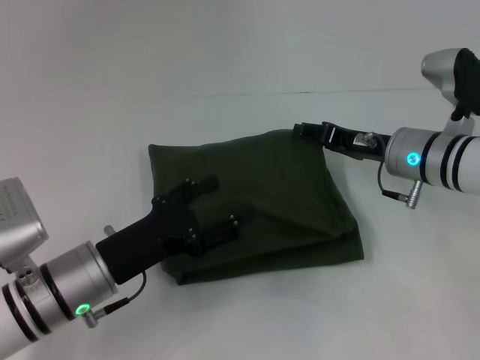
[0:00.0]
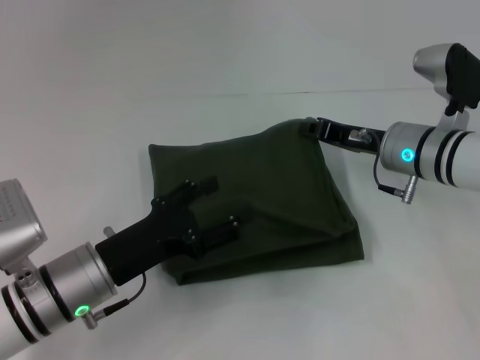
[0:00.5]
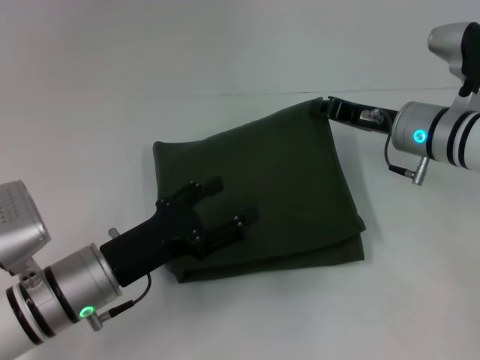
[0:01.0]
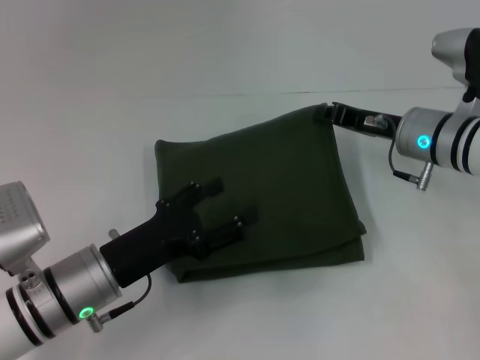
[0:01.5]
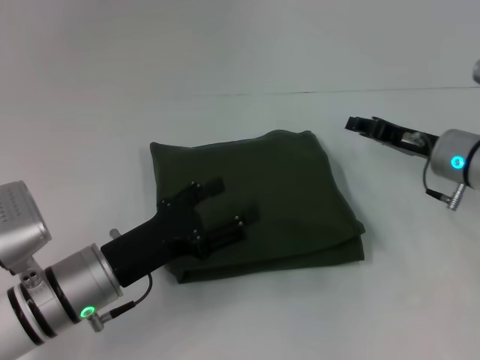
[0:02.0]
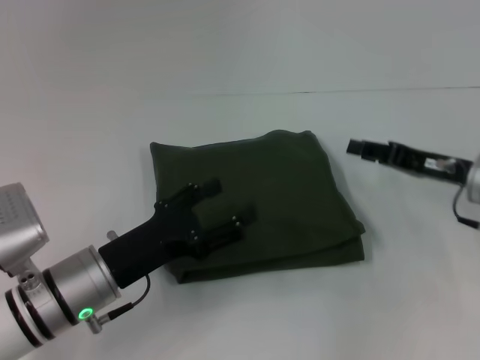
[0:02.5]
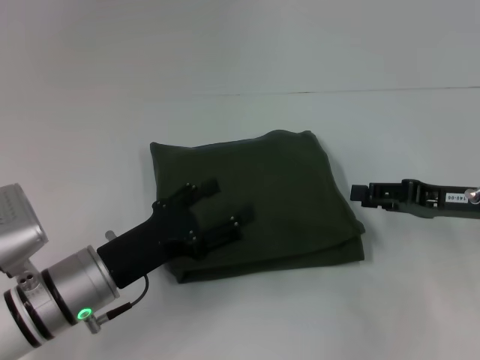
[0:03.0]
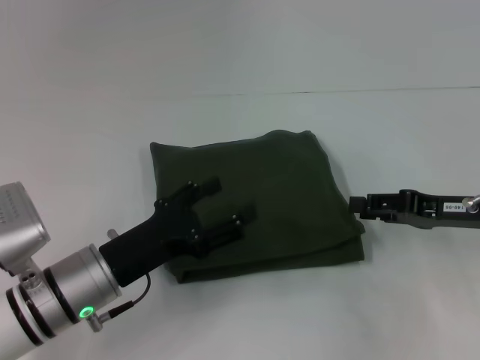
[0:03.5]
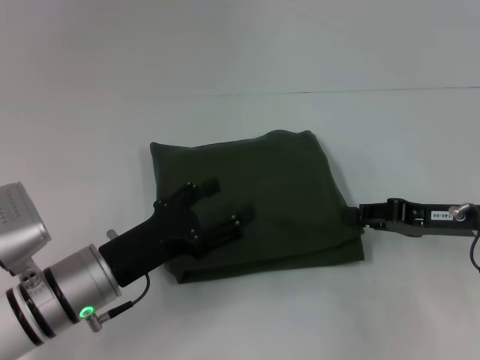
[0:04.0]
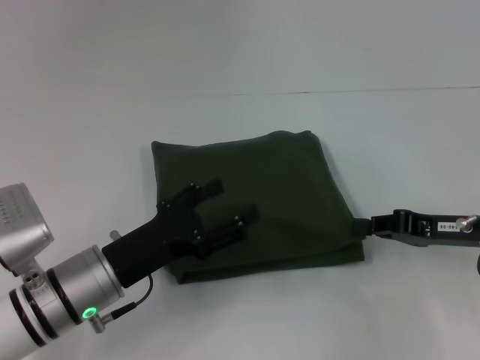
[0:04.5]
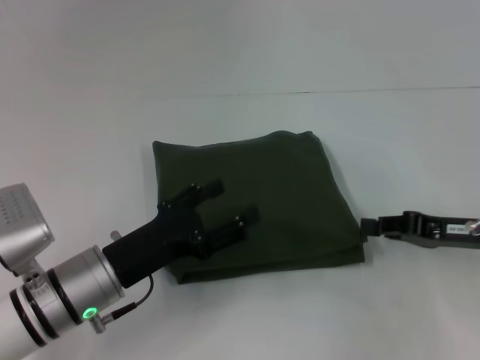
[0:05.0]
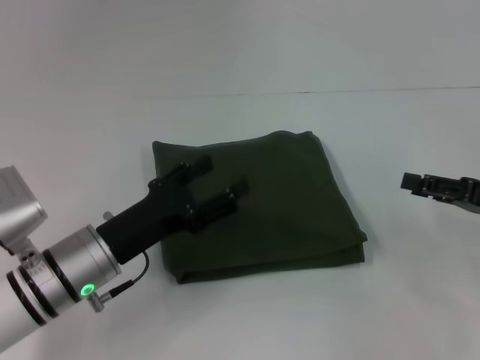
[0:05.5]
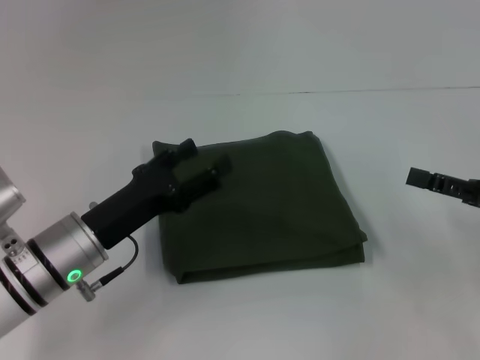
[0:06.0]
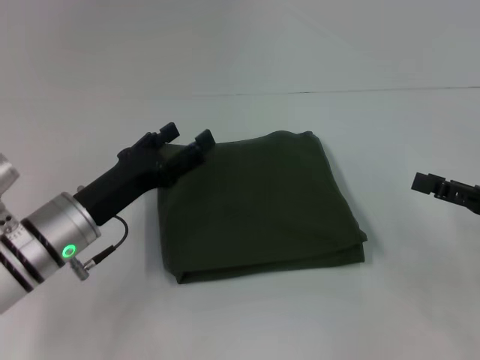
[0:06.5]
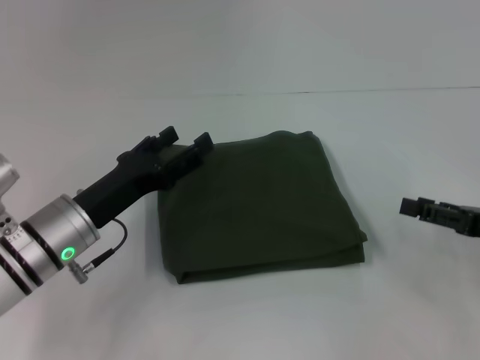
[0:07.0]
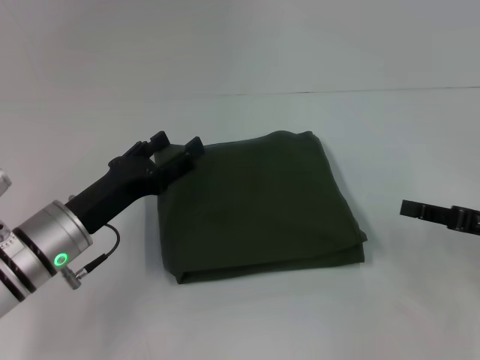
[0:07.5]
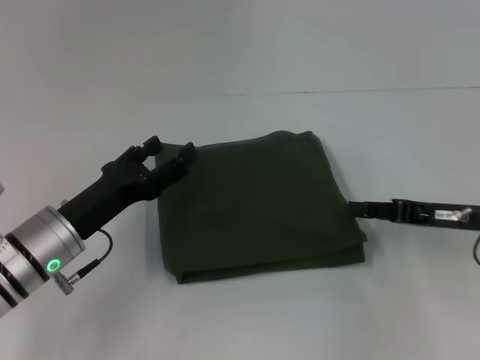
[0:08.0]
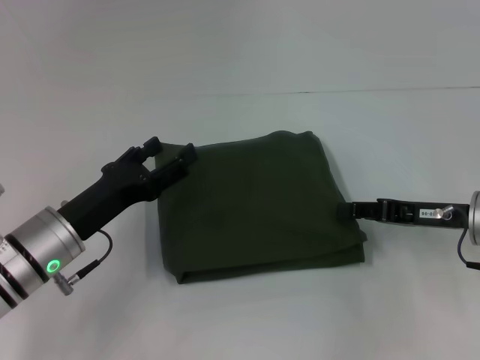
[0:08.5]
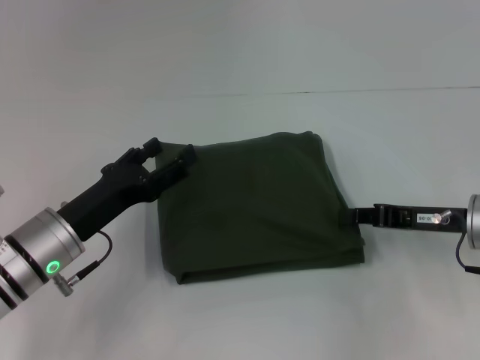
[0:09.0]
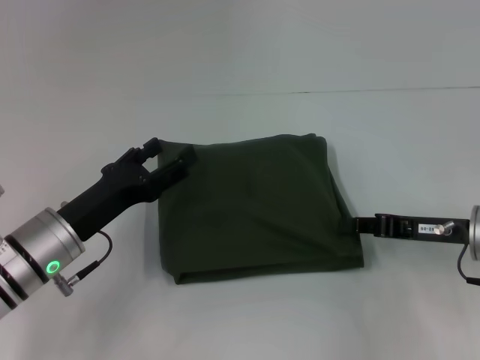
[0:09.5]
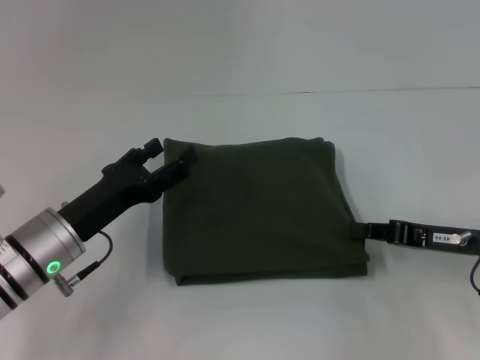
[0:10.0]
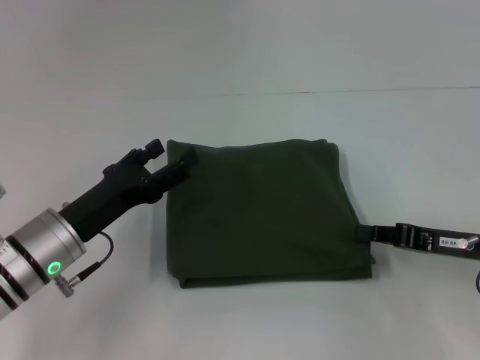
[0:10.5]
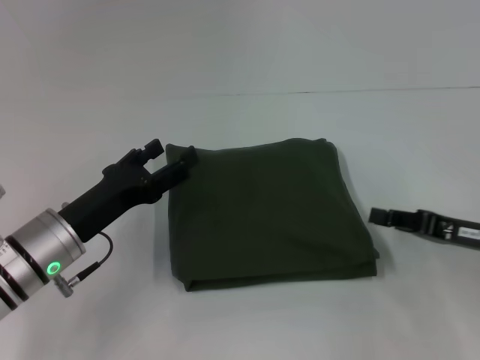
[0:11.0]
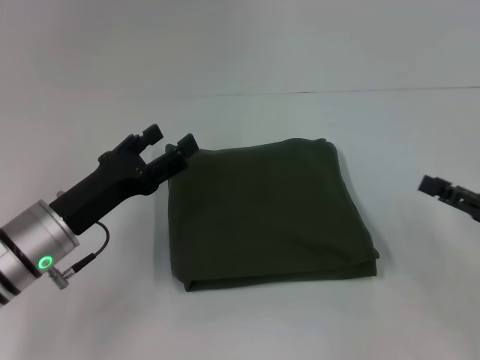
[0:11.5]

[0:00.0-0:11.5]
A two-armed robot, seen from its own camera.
0:00.0 to 0:02.0: The right gripper closes.
0:02.0 to 0:04.0: The right gripper heads backward, covering roughly 5 cm.
0:04.0 to 0:06.0: The right gripper shifts about 5 cm to the right, and opens.
0:06.0 to 0:07.5: The right gripper closes its fingers.
0:07.5 to 0:09.5: The right gripper goes about 5 cm to the left, and closes up.
0:09.5 to 0:11.5: The right gripper is displaced to the right and backward by some 10 cm, and opens its fingers.

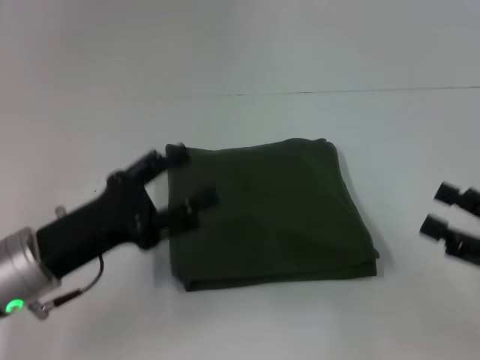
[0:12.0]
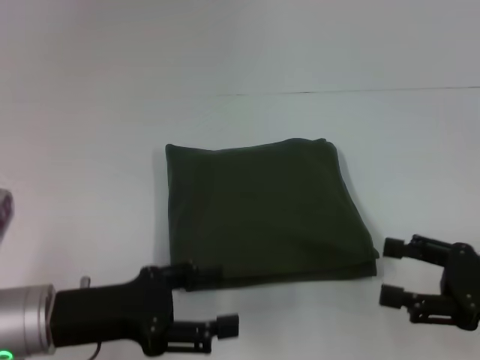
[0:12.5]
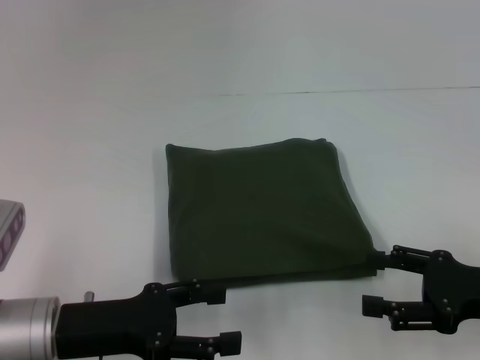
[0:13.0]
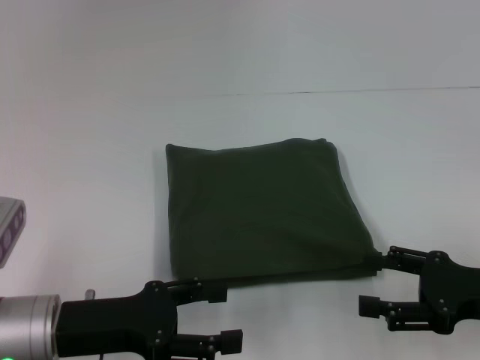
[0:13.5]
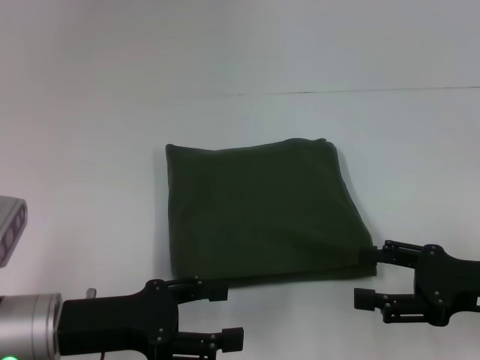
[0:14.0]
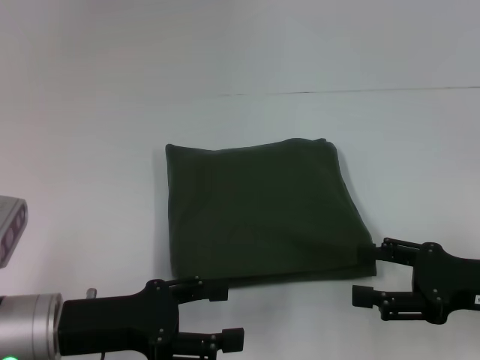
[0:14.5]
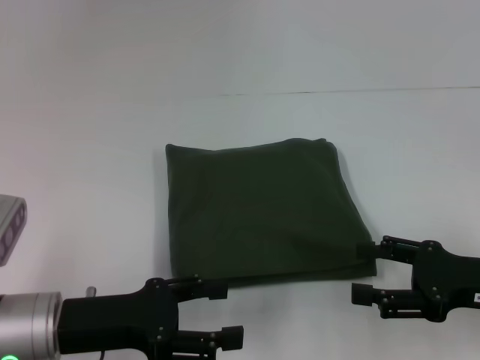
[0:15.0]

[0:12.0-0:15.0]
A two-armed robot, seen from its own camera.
0:13.5 to 0:15.0: Both grippers stay put.

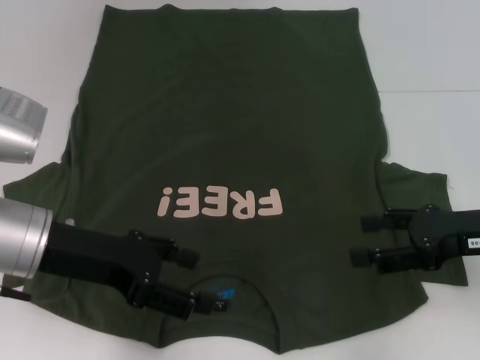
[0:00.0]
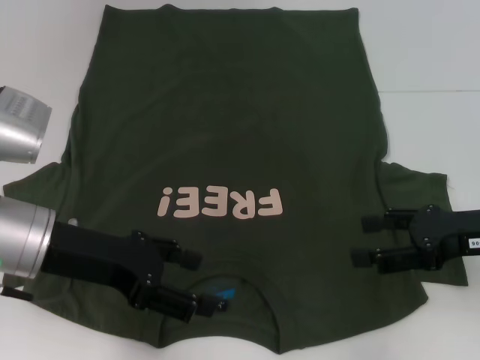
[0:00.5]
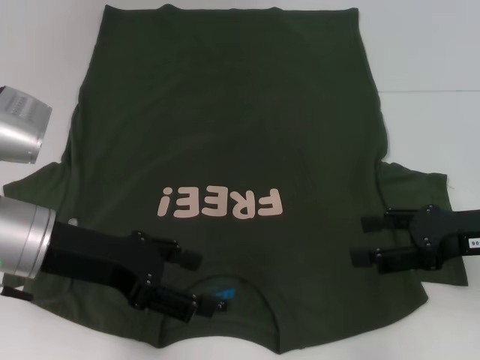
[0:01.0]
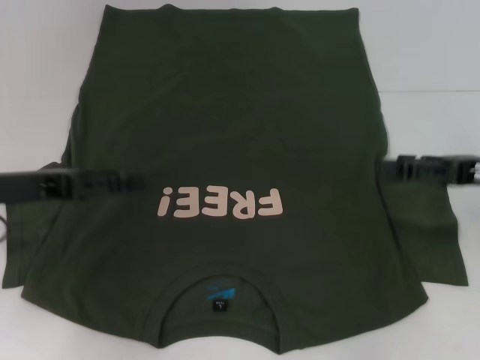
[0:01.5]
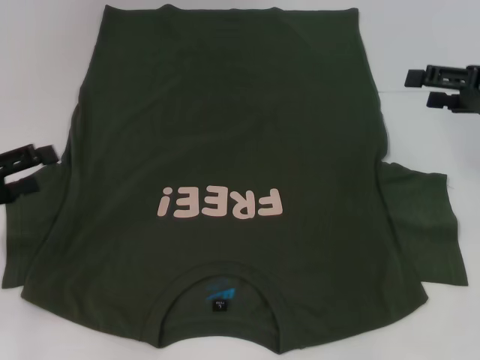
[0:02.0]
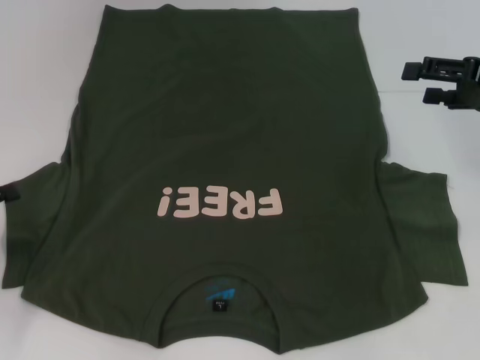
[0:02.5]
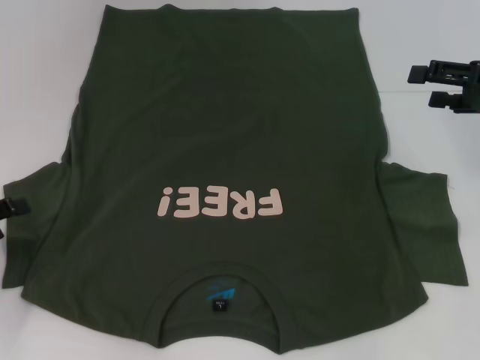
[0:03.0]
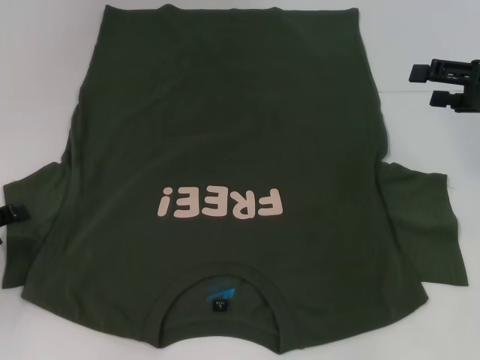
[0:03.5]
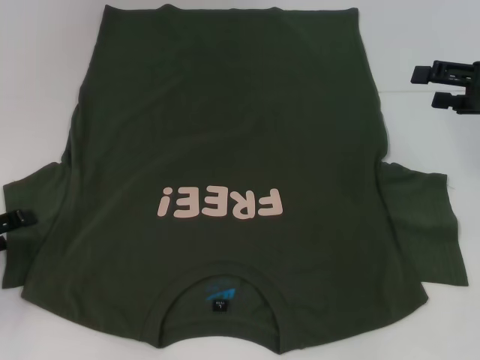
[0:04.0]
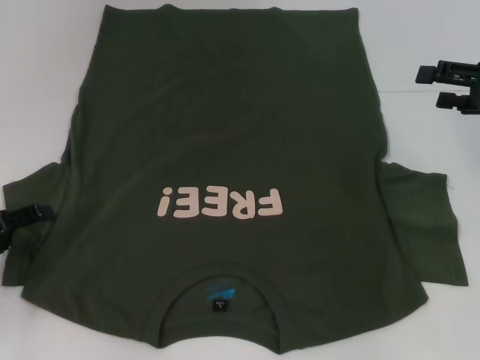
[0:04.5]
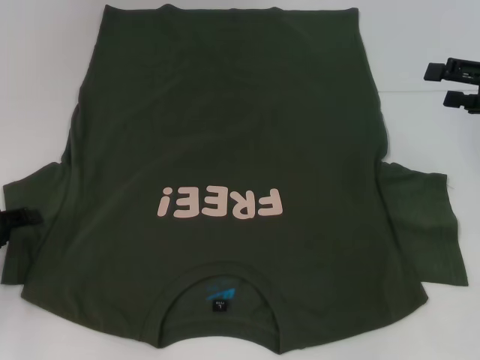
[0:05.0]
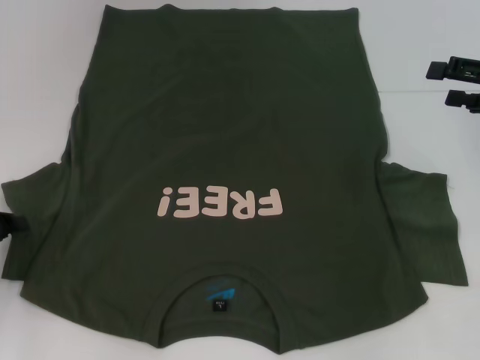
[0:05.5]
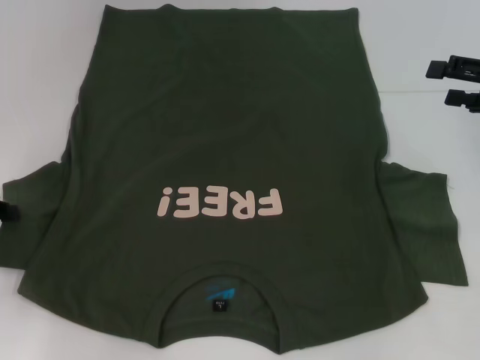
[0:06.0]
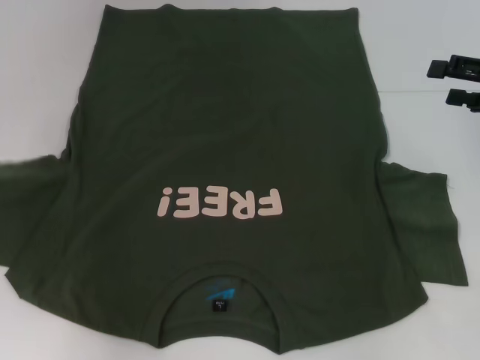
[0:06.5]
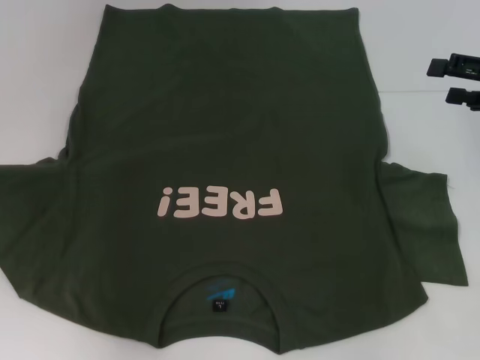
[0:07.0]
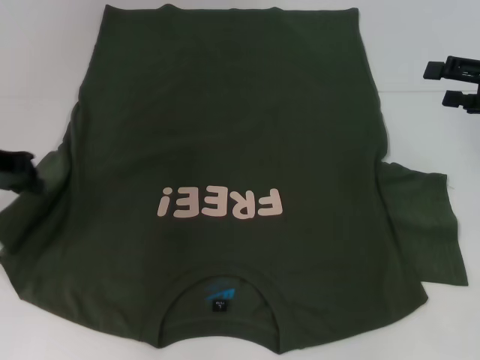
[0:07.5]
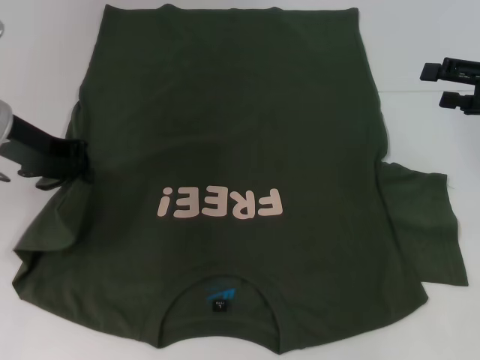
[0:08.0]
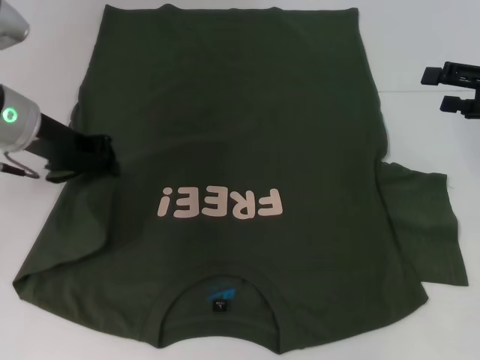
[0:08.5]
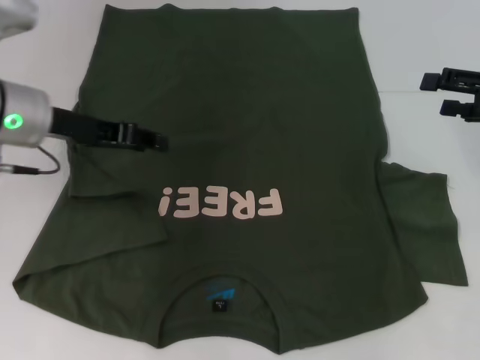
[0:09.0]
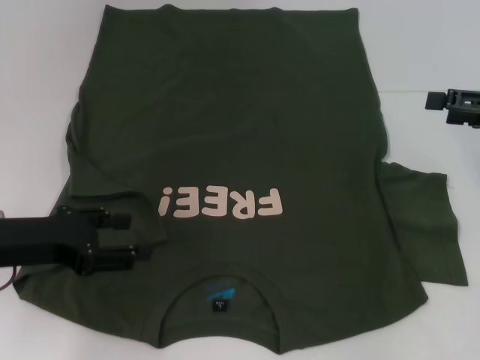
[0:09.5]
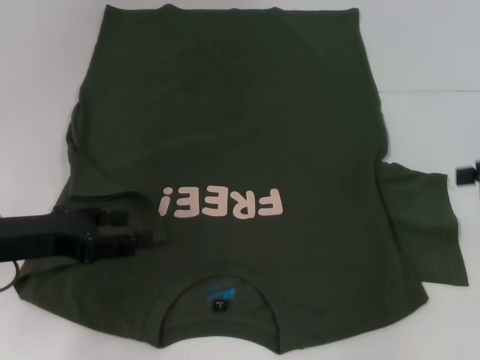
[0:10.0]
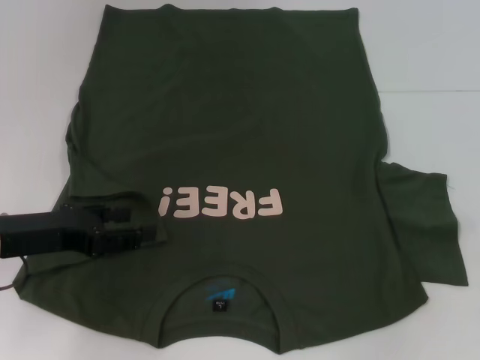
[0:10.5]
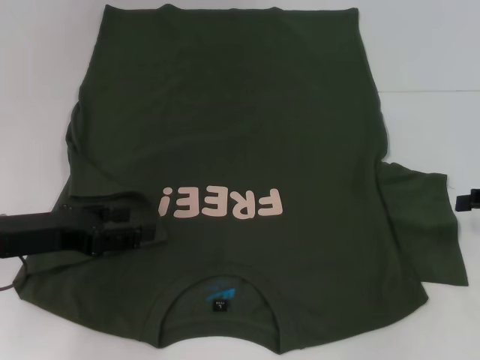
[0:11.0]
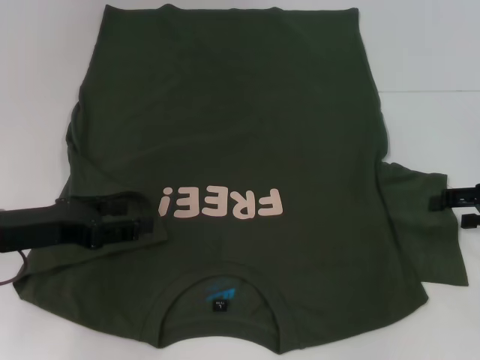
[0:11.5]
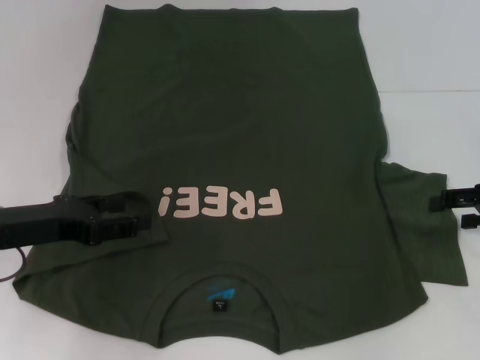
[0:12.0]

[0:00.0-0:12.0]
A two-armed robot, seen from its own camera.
Step, 0:00.0 to 0:08.5: Fold the bottom left sleeve with your left hand.
0:00.0 to 0:02.0: The right gripper heads forward and upward, covering about 10 cm. Meanwhile the left gripper moves to the left, some 15 cm.
0:02.0 to 0:04.0: The left gripper travels downward by roughly 5 cm.
0:04.0 to 0:06.0: The left gripper shifts by approximately 5 cm, and closes up.
0:06.0 to 0:08.0: The left gripper shifts about 15 cm to the right, upward and forward.
0:08.0 to 0:10.0: The right gripper changes place by some 5 cm. Meanwhile the left gripper travels backward and downward by some 15 cm, and opens up.
0:10.0 to 0:12.0: The right gripper shifts roughly 5 cm downward.
